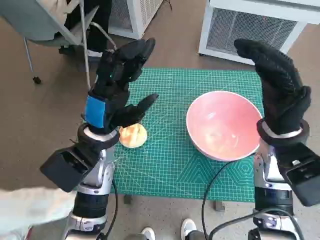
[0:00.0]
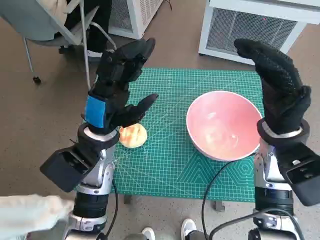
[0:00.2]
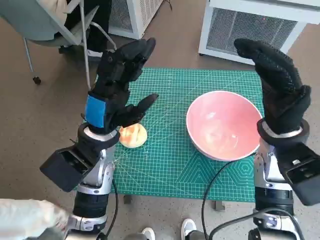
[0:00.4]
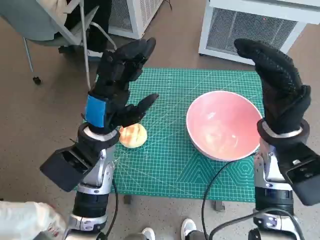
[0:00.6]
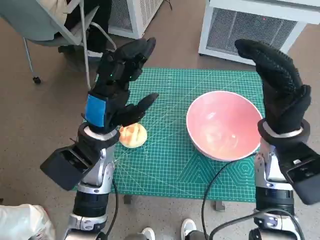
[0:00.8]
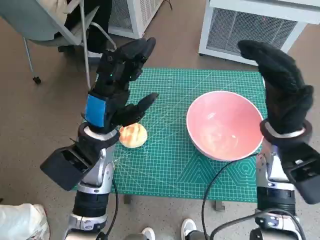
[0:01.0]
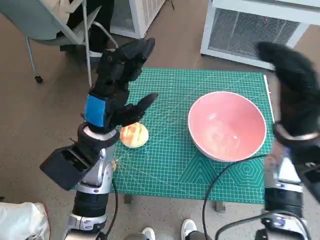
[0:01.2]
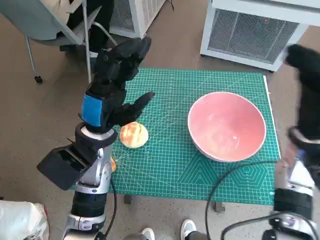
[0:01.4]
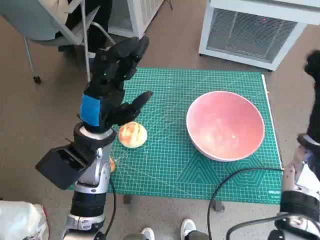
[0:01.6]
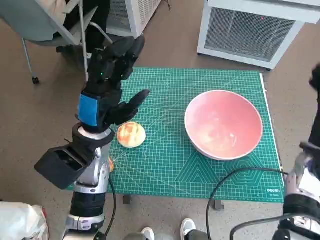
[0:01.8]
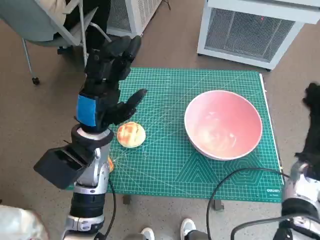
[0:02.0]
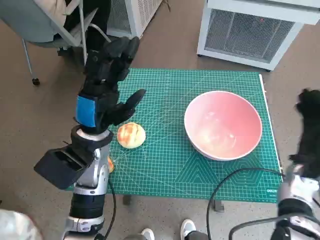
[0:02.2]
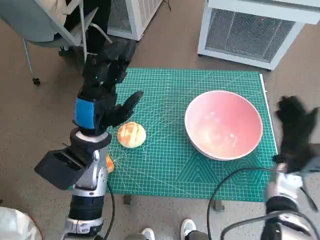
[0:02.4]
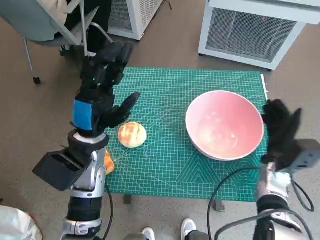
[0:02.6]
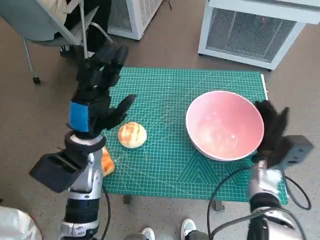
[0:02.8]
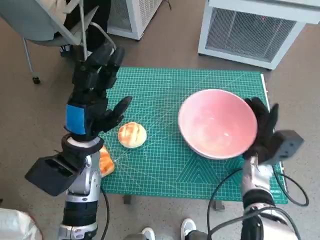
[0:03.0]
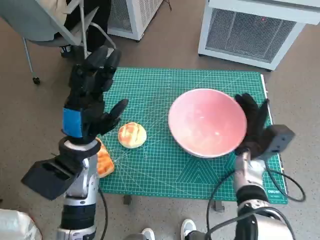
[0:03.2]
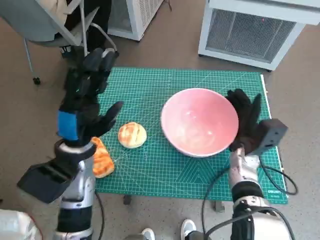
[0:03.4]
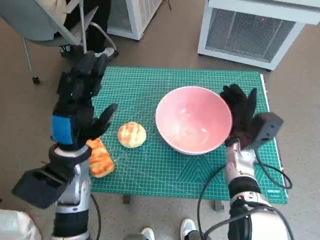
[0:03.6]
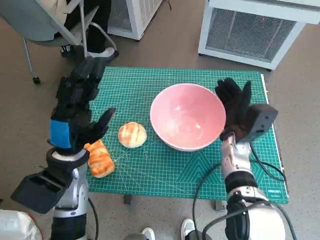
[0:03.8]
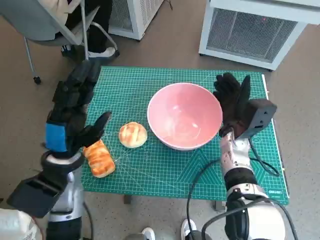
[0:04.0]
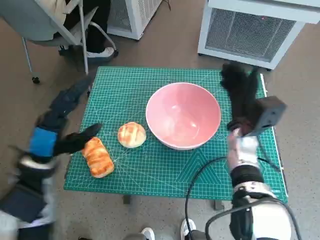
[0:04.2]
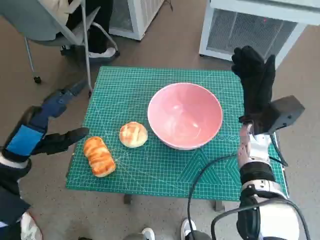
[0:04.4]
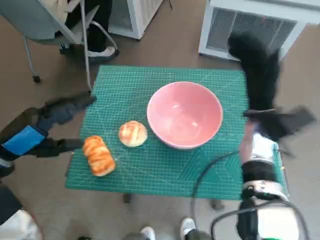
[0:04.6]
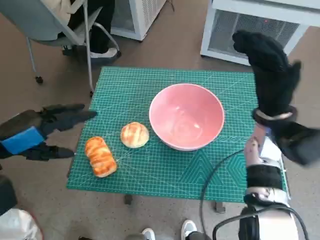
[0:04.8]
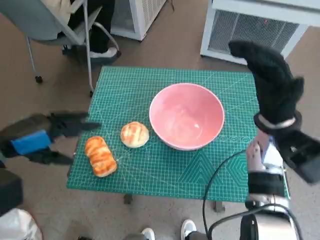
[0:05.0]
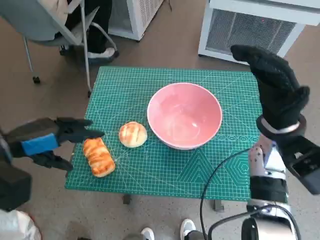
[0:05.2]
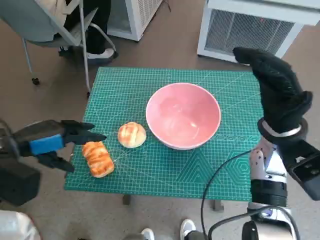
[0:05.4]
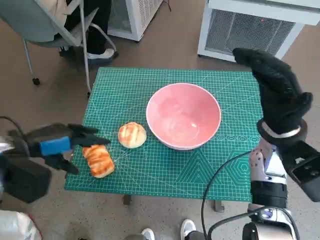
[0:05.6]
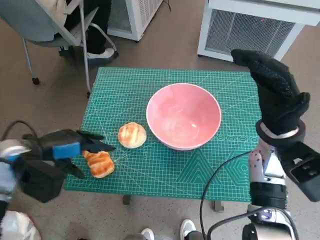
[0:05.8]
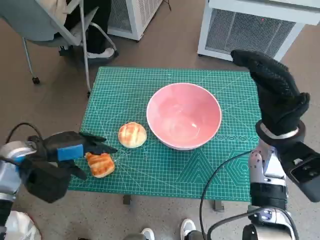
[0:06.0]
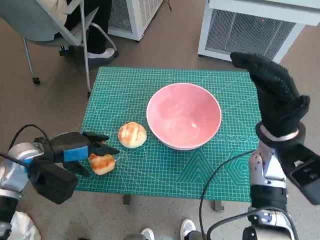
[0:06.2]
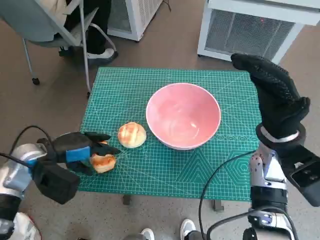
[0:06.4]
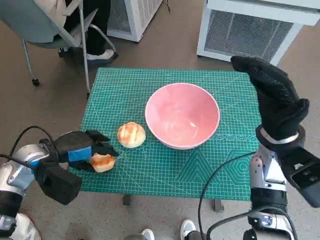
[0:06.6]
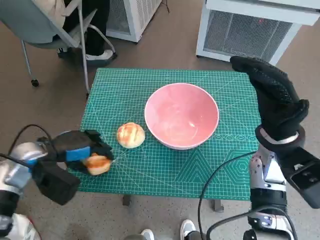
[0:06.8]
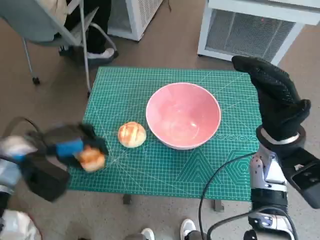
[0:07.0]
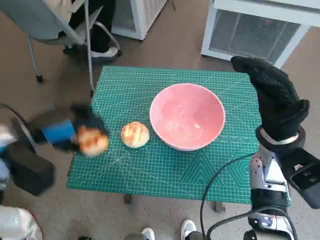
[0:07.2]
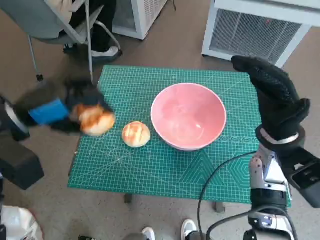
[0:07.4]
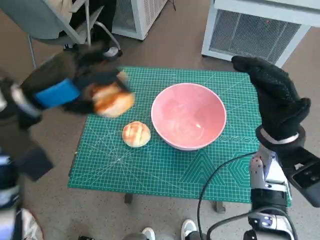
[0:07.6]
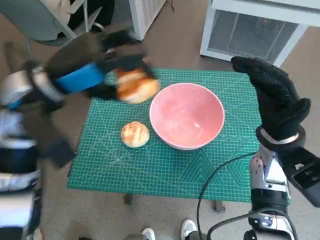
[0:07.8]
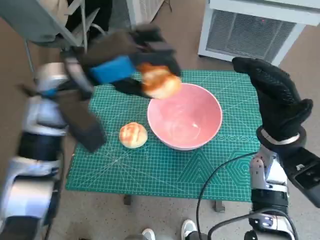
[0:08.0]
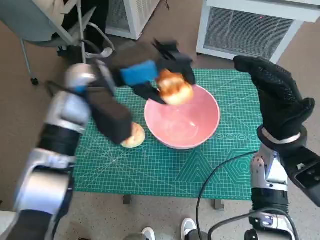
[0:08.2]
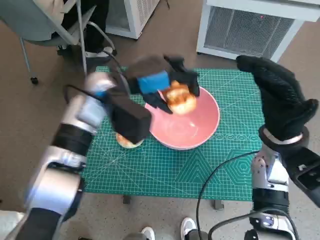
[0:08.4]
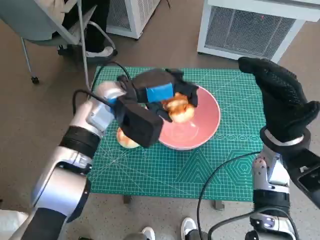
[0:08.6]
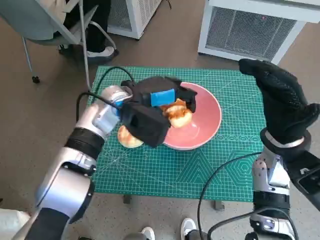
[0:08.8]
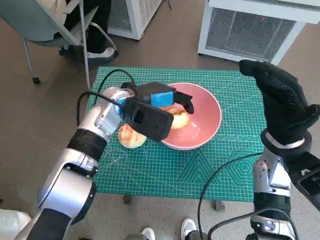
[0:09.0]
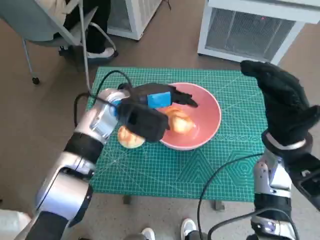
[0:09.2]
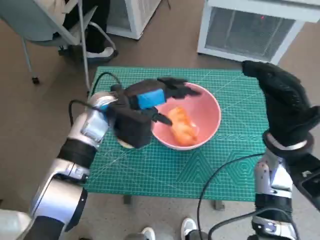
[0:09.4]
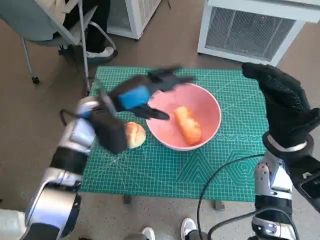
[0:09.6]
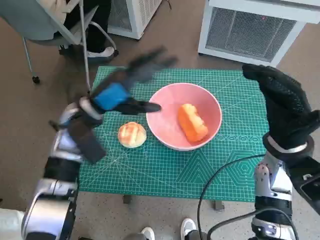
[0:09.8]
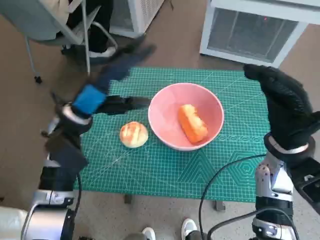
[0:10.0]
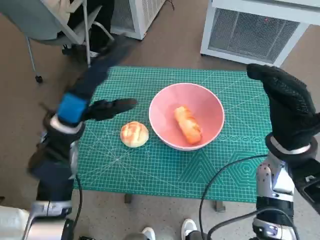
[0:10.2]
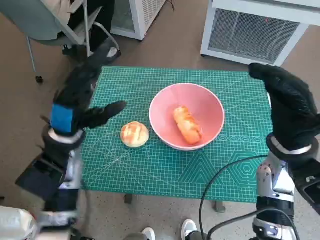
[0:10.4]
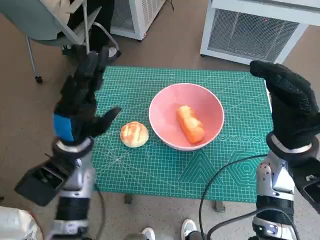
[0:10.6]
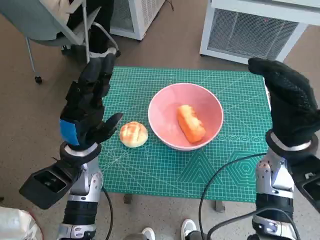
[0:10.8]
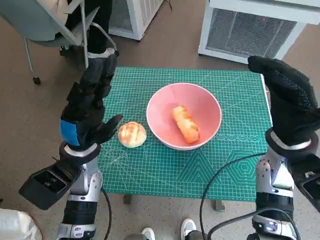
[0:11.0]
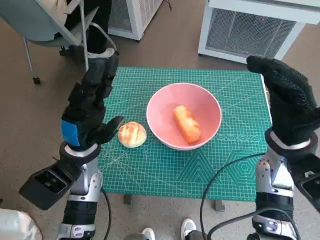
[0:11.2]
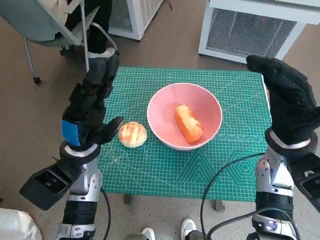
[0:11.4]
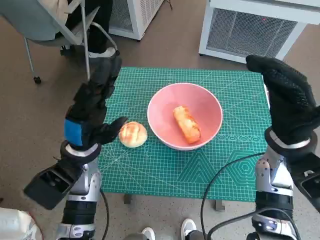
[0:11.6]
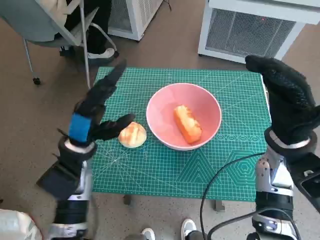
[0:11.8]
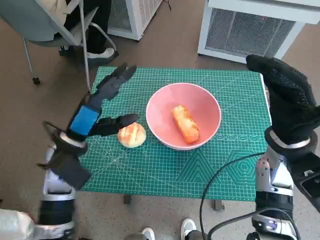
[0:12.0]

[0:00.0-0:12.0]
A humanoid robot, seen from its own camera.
Task of the whole recording: Push the bowl to the center of the table and put the bread into the bowl.
Step, 0:00.0 to 0:04.2: Move the pink bowl to the center of table with right hand.
Step, 0:04.4 to 0:06.6: Grasp the long bread with left hand.
Step, 0:06.8 to 0:09.2: Place the long bread in pink bowl with left hand.
0:01.6 to 0:03.0: The right hand shifts about 10 cm downward and to the left.
0:03.0 to 0:04.4: The left hand moves to the left, some 10 cm. The right hand shifts approximately 5 cm upward.
0:04.4 to 0:06.0: The right hand shifts some 5 cm upward.
0:06.0 to 0:07.6: The left hand shifts approximately 10 cm upward.
0:07.6 to 0:09.0: The left hand goes some 20 cm to the right, forward and downward.
0:09.0 to 0:10.4: The left hand heads to the left and backward, covering roughly 15 cm.

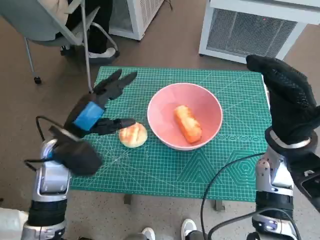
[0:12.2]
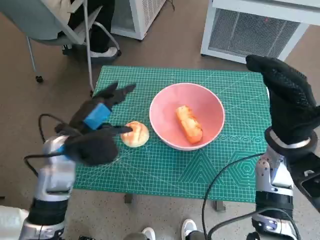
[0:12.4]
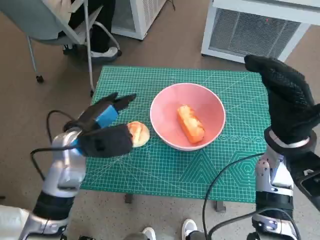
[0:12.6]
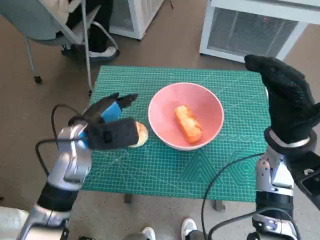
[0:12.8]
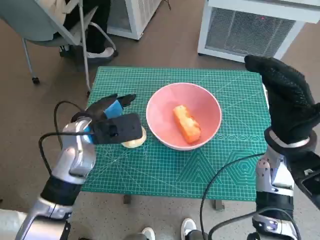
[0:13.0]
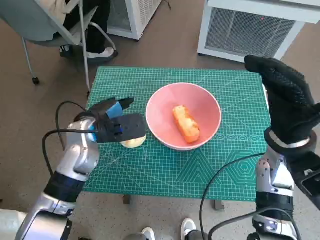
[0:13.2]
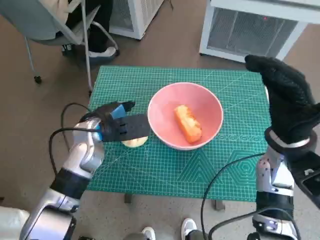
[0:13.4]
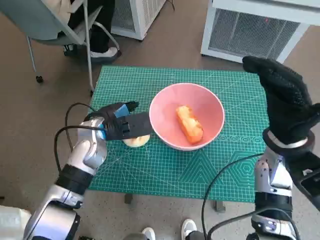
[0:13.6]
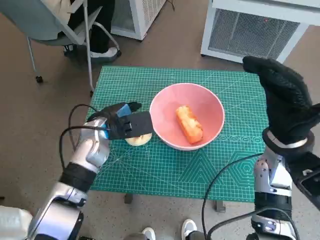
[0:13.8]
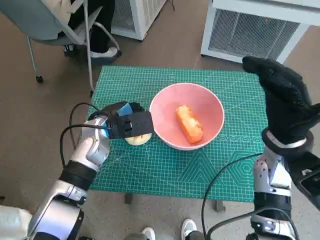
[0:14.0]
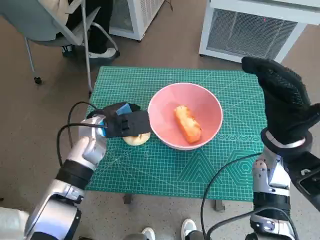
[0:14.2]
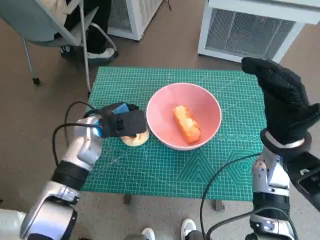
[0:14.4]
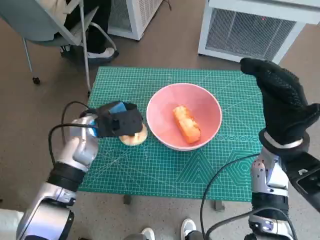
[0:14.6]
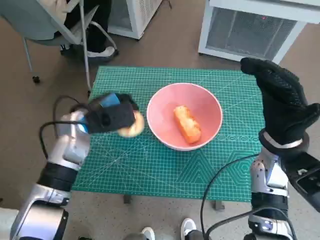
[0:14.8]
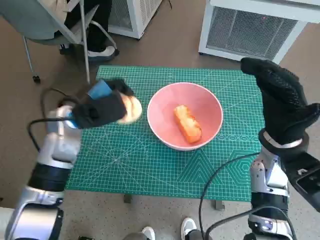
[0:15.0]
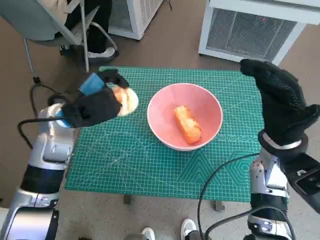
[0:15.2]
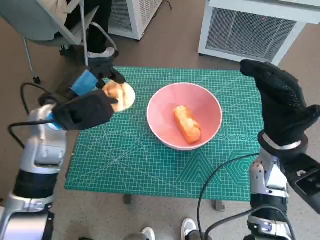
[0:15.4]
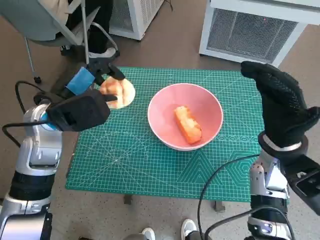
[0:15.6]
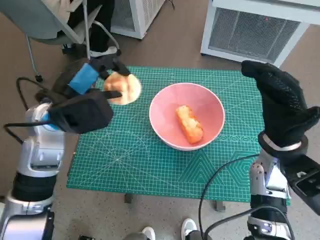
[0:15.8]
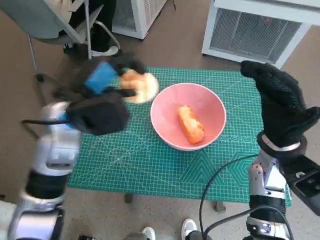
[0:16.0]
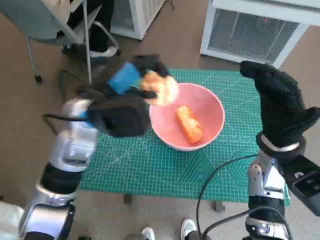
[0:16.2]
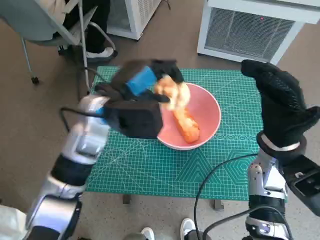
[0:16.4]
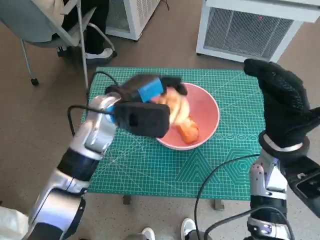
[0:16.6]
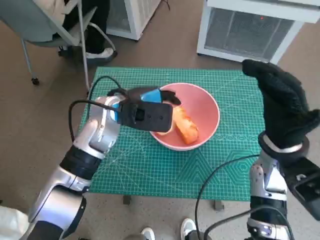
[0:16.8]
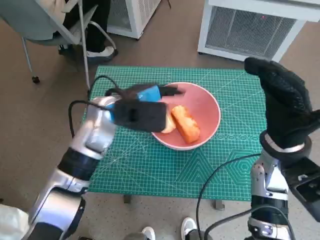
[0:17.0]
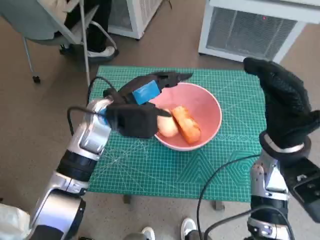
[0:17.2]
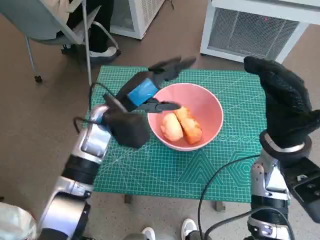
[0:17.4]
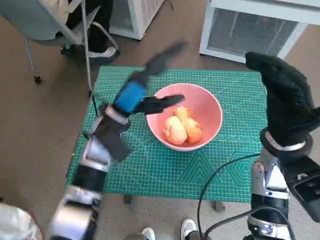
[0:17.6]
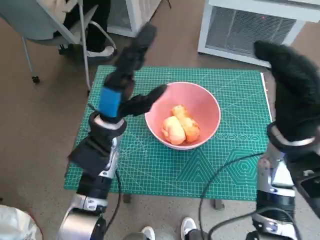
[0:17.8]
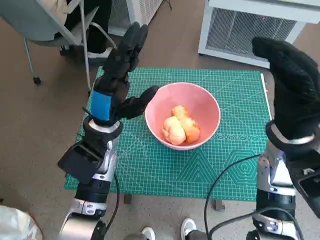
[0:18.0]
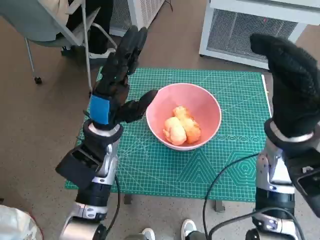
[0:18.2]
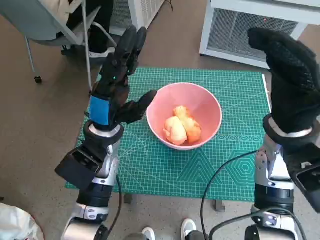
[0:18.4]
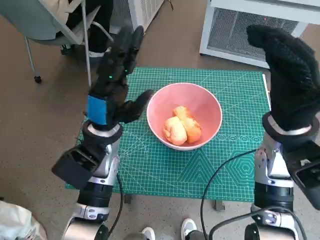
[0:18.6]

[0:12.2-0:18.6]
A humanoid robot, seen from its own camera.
Task of the whole recording: Push the bowl to the center of the table and put the bread into the bowl.
Step, 0:12.2 to 0:14.2: Grasp the round bread with left hand.
Step, 0:14.4 to 0:17.2: Place the round bread in pink bowl with left hand.
0:12.2 to 0:13.8: The left hand shifts approximately 5 cm forward.
0:13.8 to 0:15.4: The left hand heads upward, covering some 10 cm.
0:15.4 to 0:17.0: The left hand is displaced to the right by roughly 10 cm.
0:17.0 to 0:18.6: The left hand shifts by approximately 5 cm.

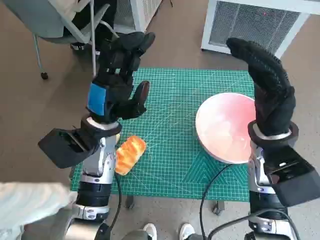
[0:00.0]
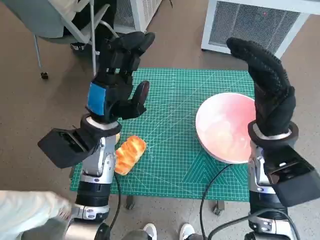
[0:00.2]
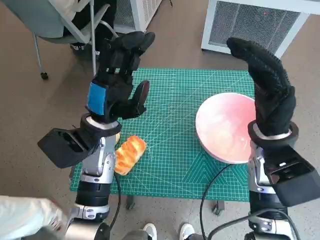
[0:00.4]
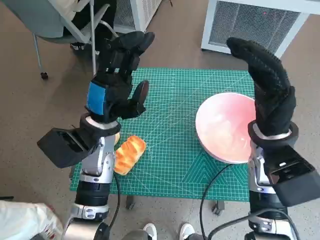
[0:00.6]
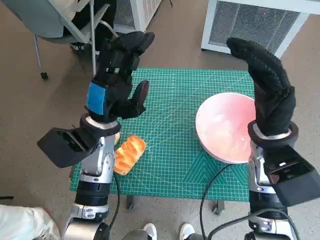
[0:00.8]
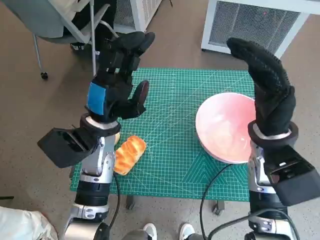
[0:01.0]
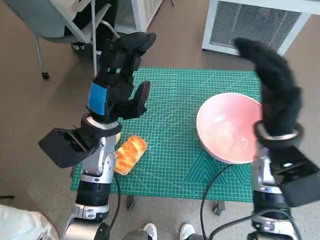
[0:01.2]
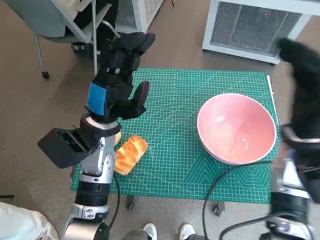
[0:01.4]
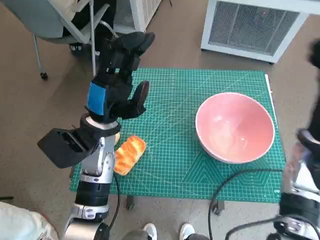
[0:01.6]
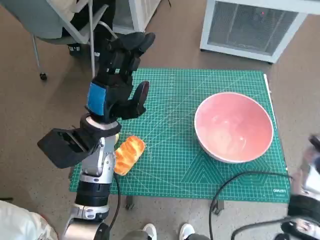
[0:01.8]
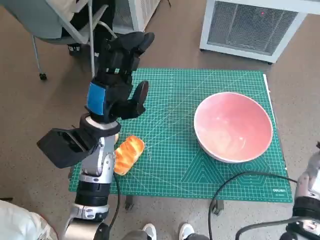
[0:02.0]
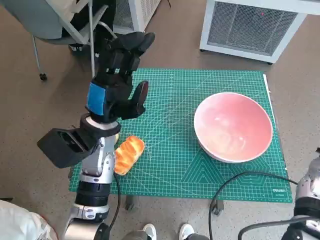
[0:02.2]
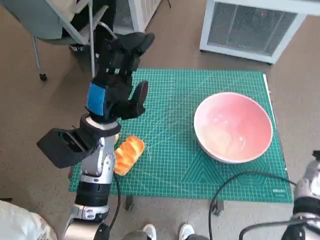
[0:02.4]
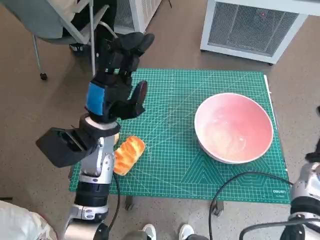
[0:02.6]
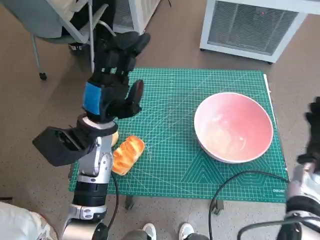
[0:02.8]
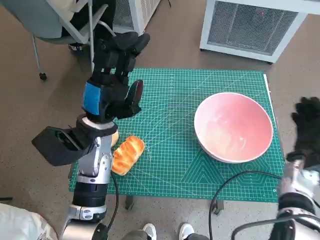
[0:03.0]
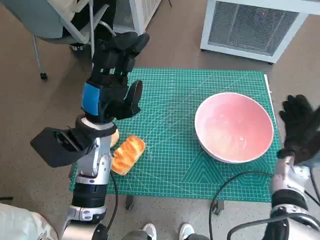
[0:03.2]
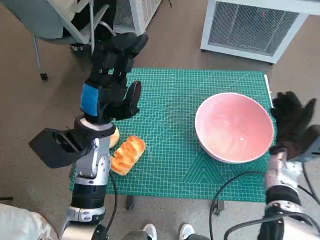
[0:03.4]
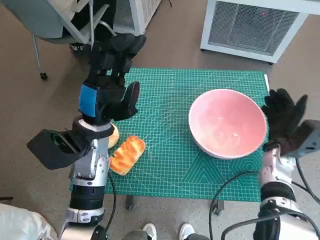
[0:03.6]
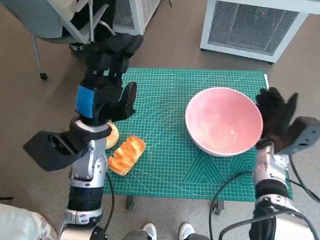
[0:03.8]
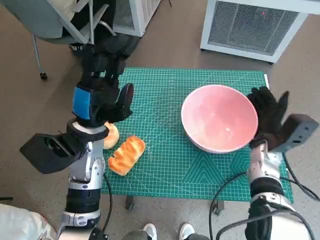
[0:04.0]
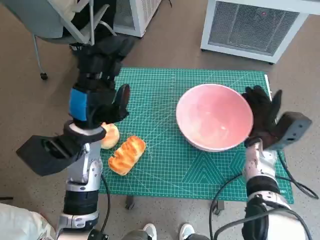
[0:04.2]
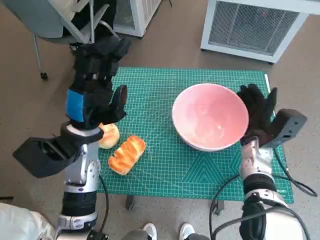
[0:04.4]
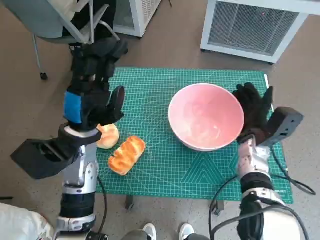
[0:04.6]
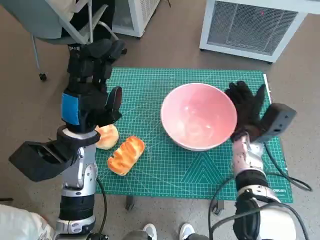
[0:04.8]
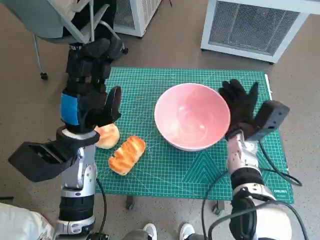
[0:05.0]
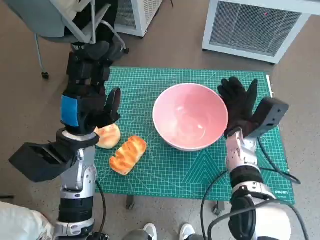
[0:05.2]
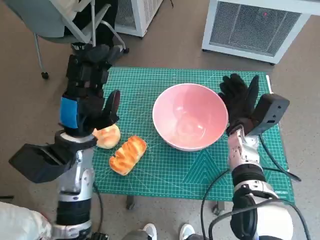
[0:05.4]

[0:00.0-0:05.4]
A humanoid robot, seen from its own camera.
Task of the whole recording: Push the bowl to the center of the table and put the bread into the bowl.
0:01.4 to 0:02.8: The right hand shifts approximately 15 cm downward and to the right.
0:02.8 to 0:04.0: The right hand goes about 10 cm to the left.
0:04.0 to 0:05.4: The right hand heads to the left, covering about 5 cm.
